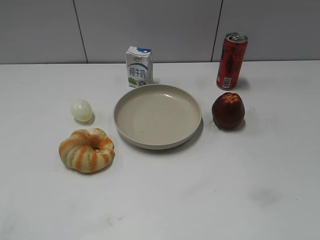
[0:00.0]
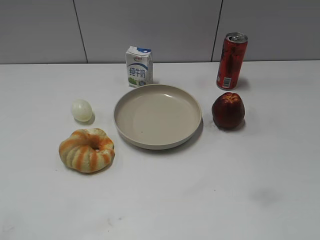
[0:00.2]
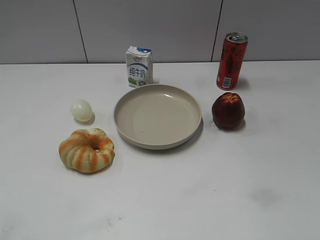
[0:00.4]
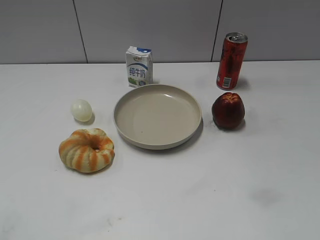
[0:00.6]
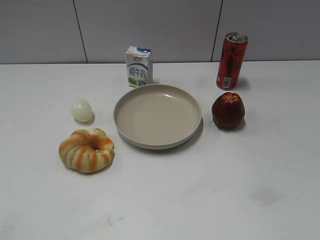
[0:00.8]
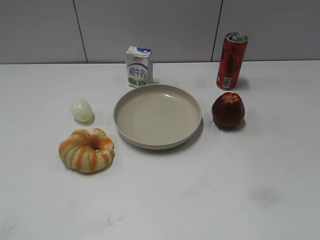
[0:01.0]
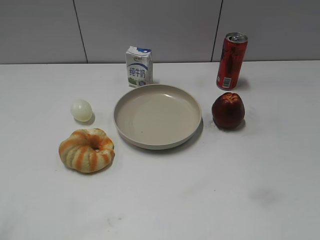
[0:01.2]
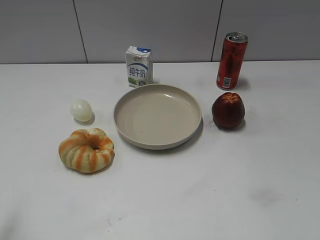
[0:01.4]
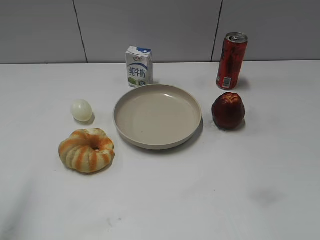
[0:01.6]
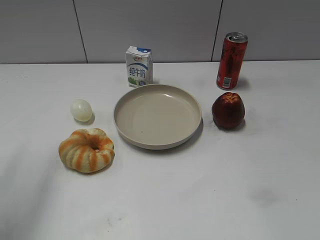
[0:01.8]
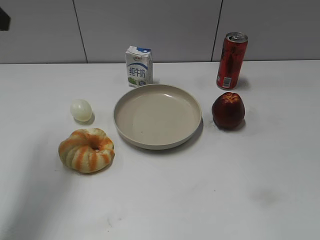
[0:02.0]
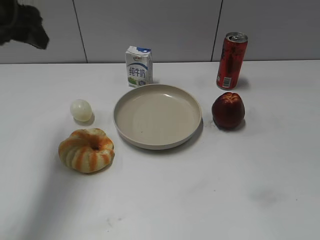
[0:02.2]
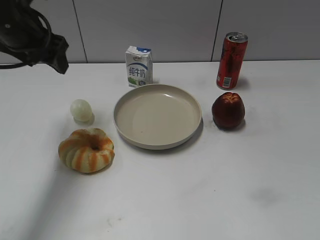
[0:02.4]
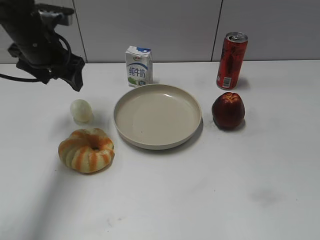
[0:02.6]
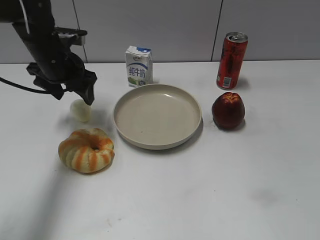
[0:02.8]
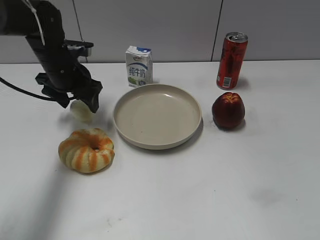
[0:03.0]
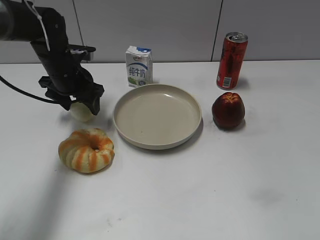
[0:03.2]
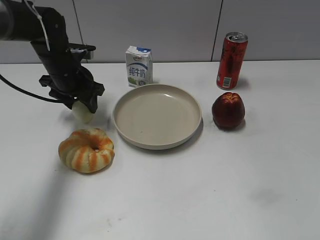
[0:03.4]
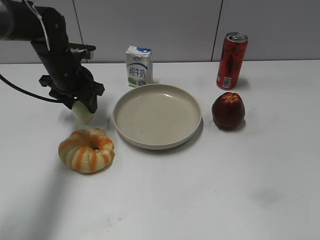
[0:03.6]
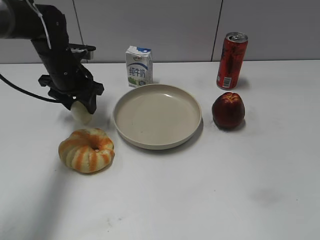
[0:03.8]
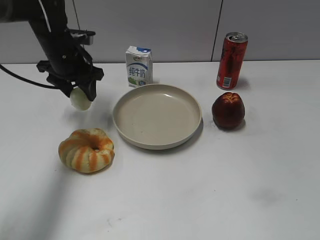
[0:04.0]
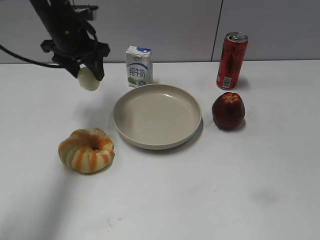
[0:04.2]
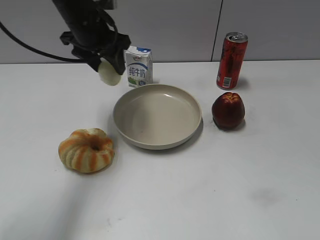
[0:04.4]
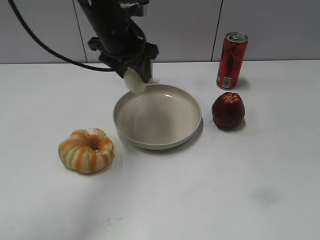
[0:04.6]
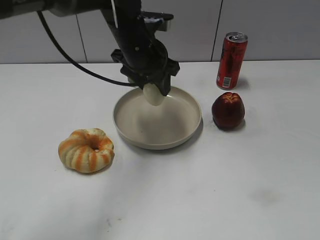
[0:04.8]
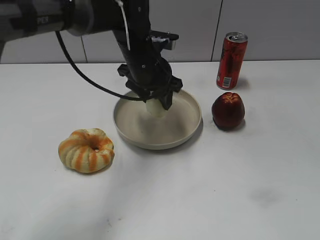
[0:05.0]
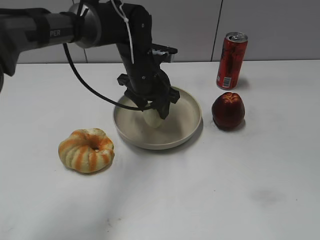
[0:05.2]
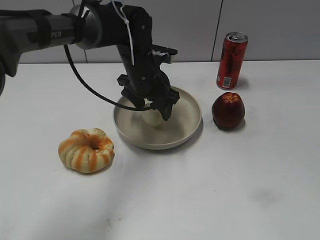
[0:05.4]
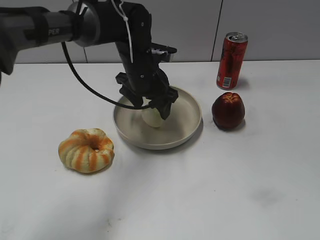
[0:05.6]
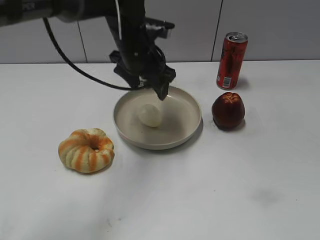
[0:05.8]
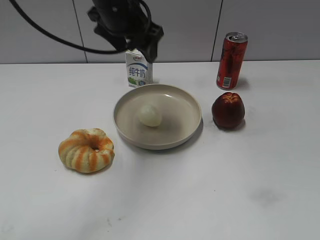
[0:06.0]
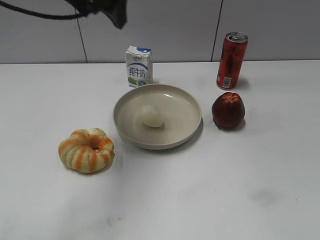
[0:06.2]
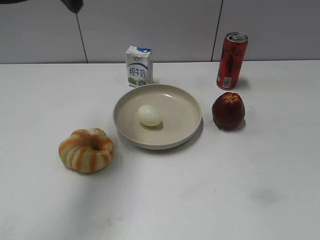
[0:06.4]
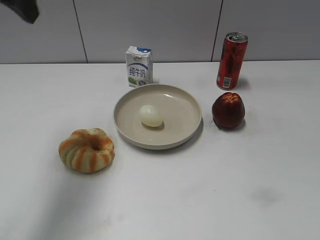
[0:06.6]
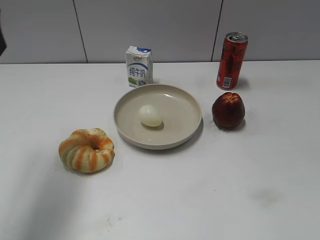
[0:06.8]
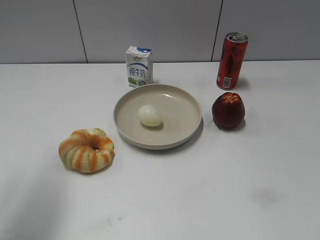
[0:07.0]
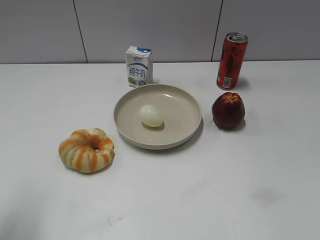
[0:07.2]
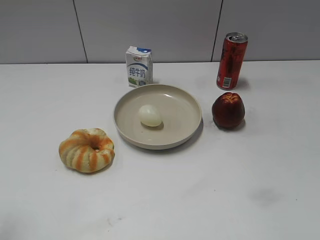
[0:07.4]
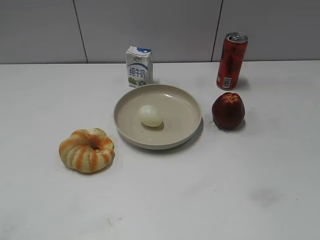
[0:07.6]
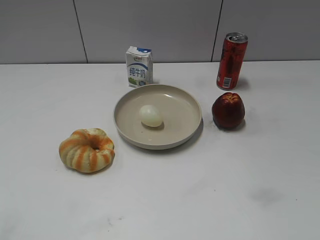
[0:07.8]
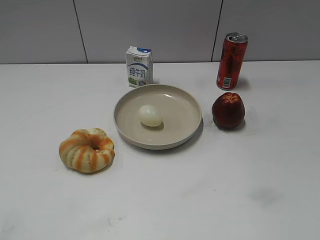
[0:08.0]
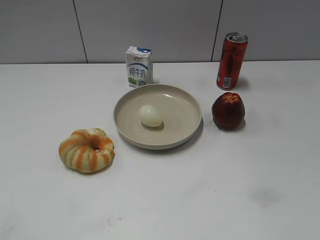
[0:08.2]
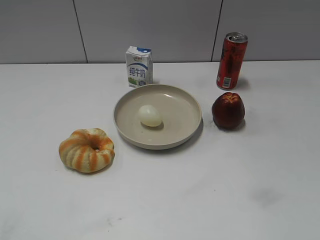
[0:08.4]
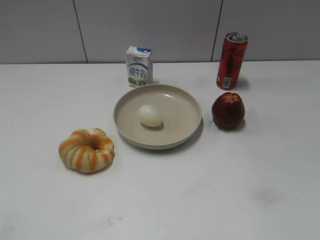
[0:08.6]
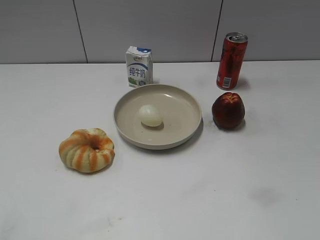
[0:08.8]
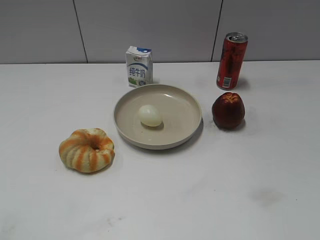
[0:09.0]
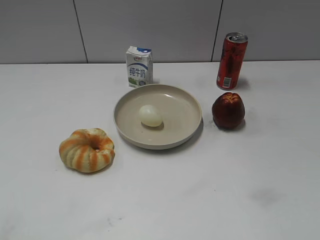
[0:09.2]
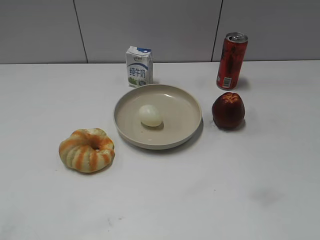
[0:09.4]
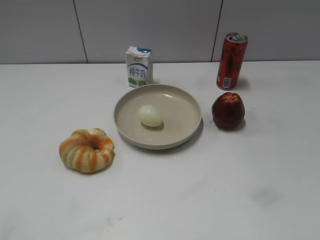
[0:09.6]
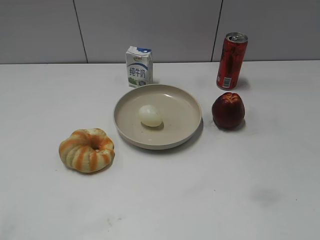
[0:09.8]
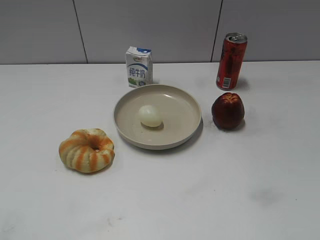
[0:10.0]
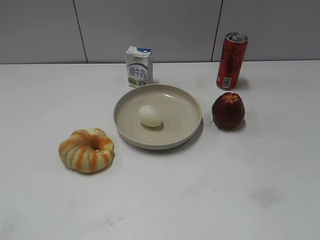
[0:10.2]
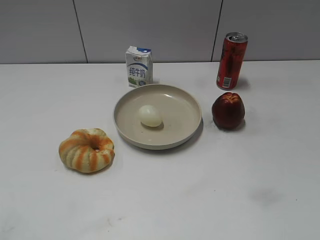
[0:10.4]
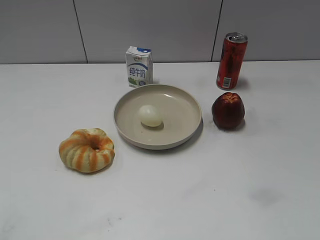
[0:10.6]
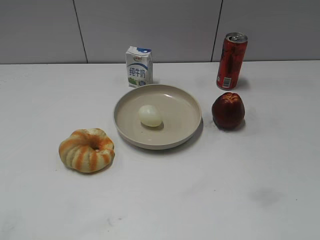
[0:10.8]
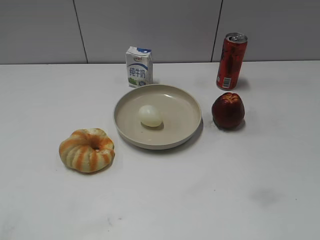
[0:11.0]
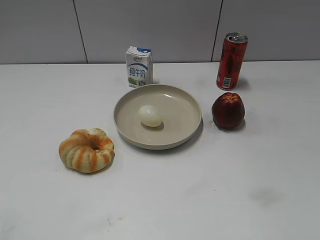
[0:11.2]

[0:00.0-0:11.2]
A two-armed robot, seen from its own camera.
Step, 0:00.6 to 0:03.8: Grasp the egg with left gripper.
Step, 0:04.0 to 0:05.6: Place the egg on the plate with left gripper.
0:01.6 to 0:03.2: The left gripper heads forward, downward and to the right, covering some 40 cm.
0:03.2 to 0:04.8: The left gripper is displaced to the right and upward by approximately 15 cm, and closes its fingers.
0:04.8 to 0:06.4: The left gripper goes roughly 20 cm upward and to the left, and opens up.
0:06.4 to 0:08.0: The left gripper shifts roughly 35 cm backward and to the left.
